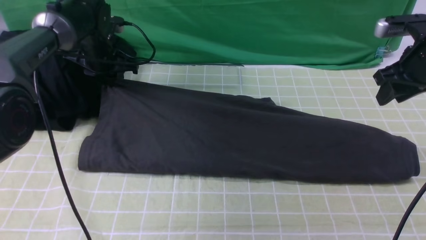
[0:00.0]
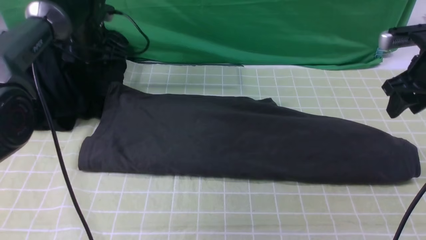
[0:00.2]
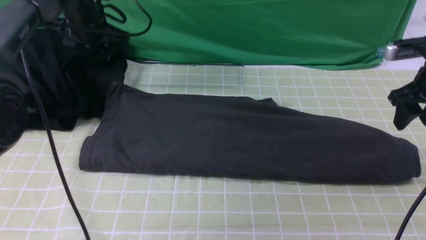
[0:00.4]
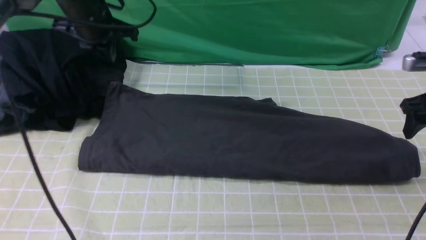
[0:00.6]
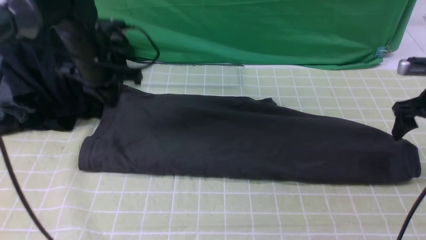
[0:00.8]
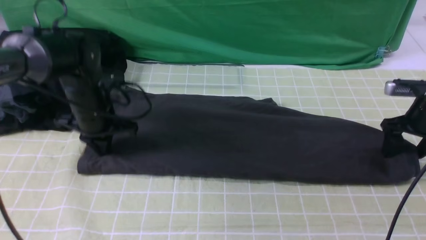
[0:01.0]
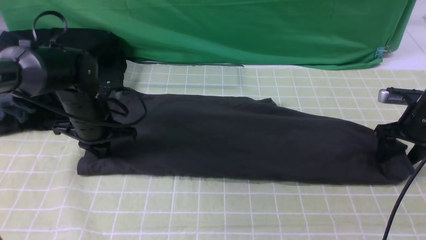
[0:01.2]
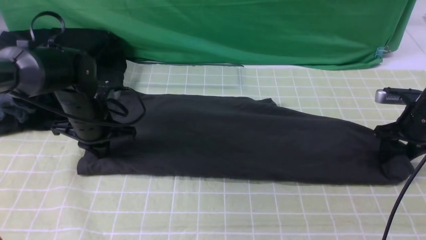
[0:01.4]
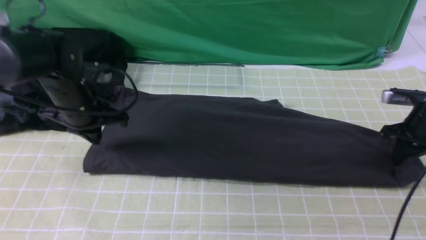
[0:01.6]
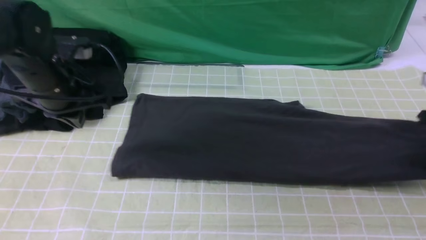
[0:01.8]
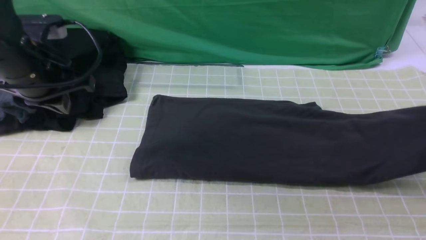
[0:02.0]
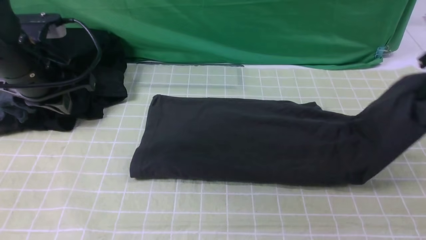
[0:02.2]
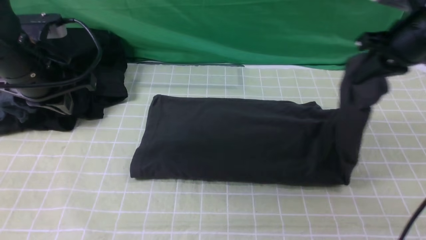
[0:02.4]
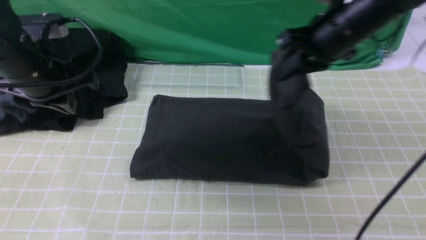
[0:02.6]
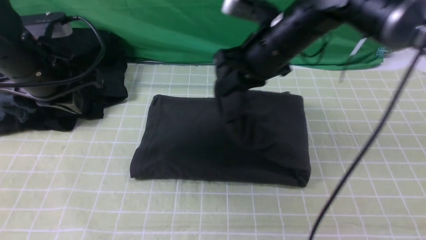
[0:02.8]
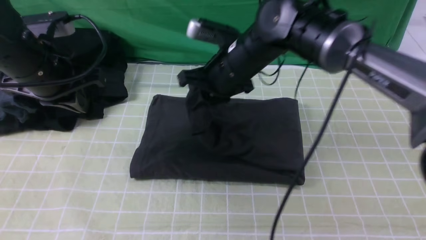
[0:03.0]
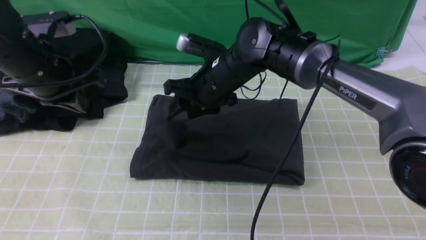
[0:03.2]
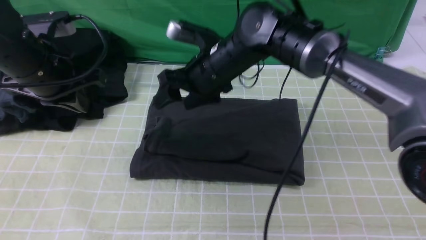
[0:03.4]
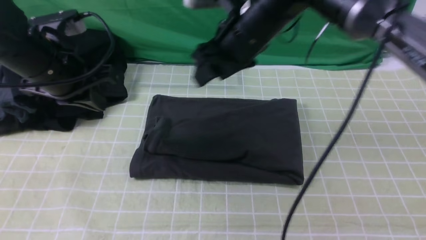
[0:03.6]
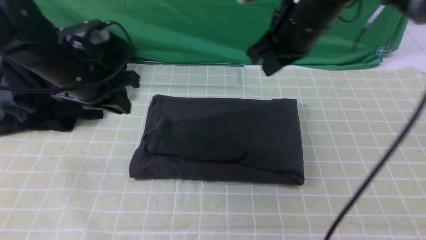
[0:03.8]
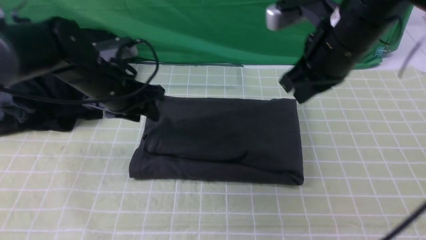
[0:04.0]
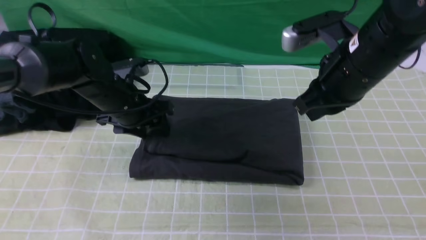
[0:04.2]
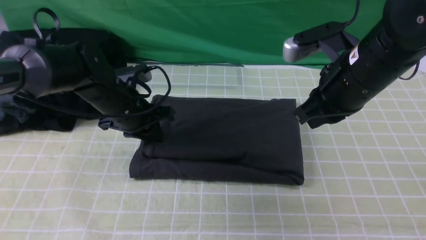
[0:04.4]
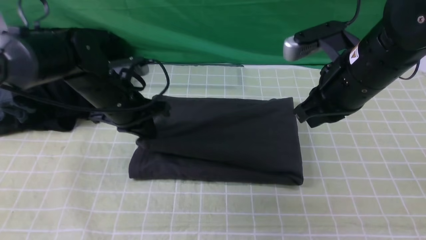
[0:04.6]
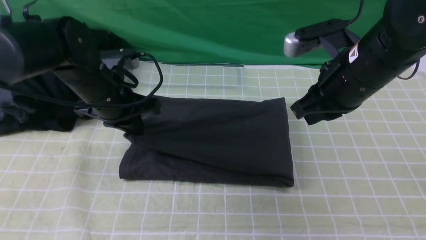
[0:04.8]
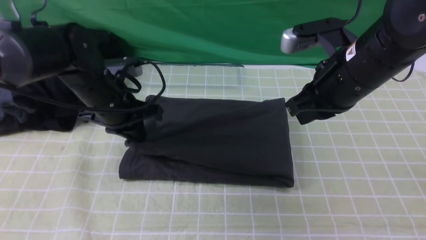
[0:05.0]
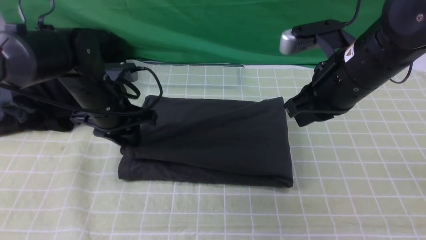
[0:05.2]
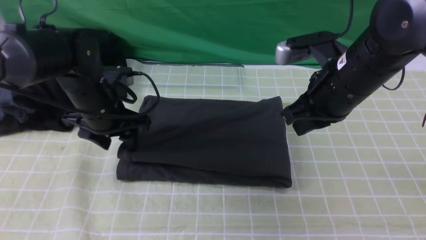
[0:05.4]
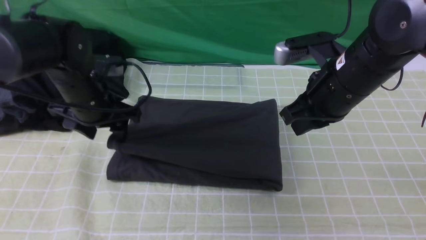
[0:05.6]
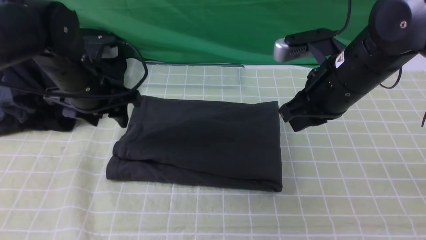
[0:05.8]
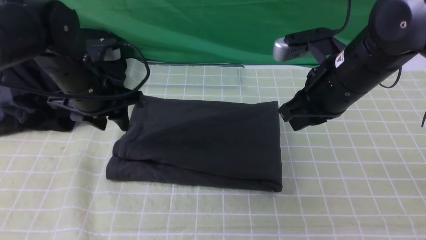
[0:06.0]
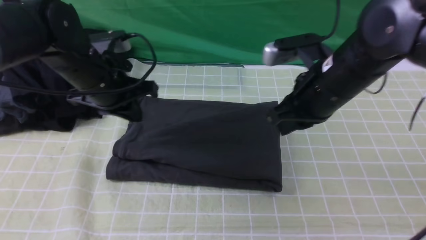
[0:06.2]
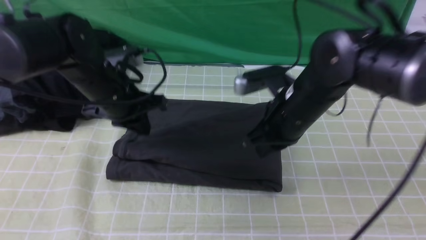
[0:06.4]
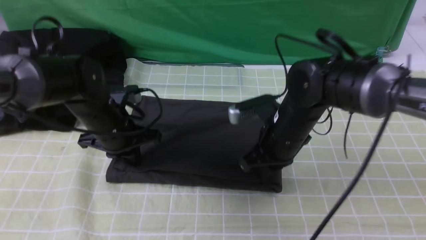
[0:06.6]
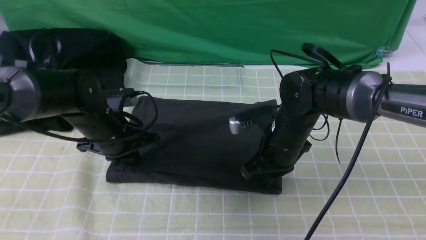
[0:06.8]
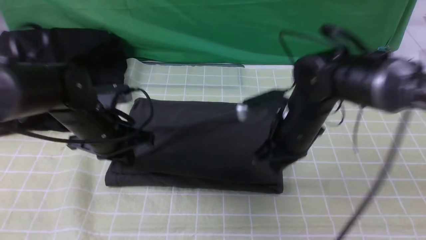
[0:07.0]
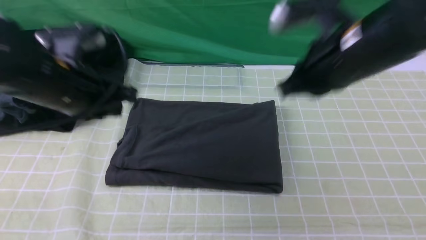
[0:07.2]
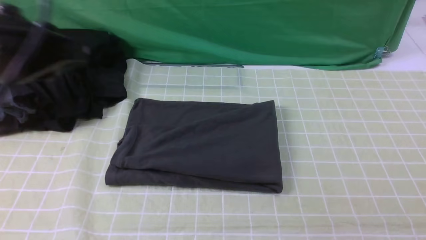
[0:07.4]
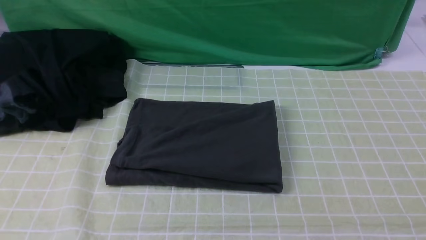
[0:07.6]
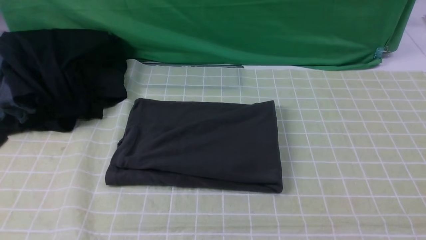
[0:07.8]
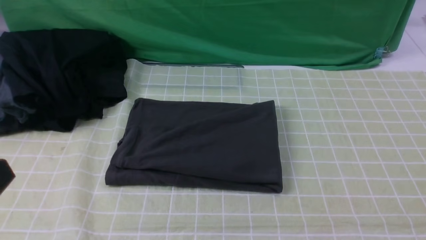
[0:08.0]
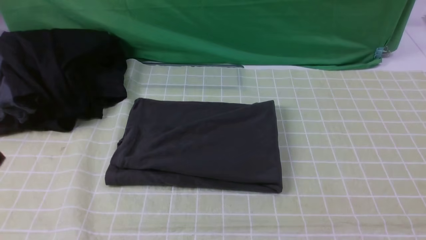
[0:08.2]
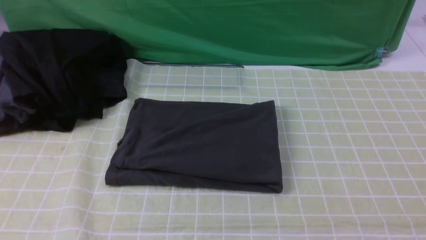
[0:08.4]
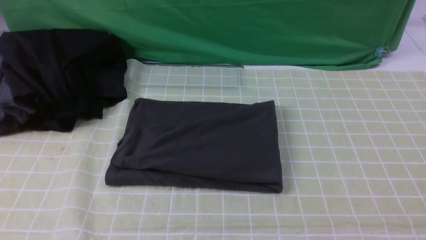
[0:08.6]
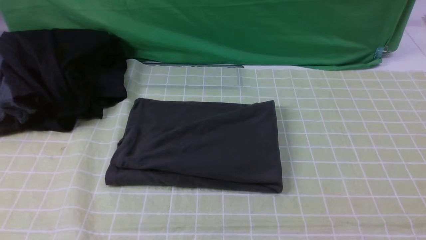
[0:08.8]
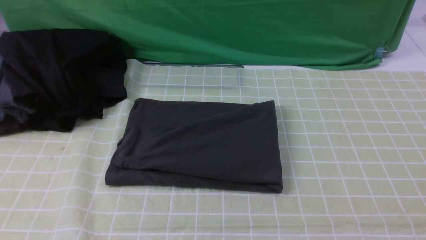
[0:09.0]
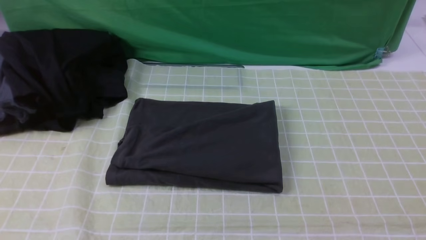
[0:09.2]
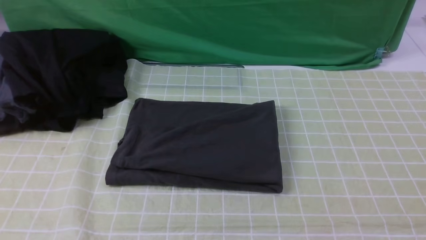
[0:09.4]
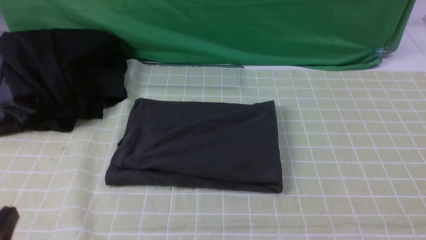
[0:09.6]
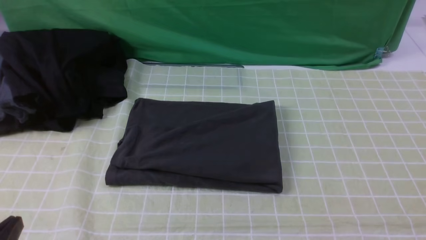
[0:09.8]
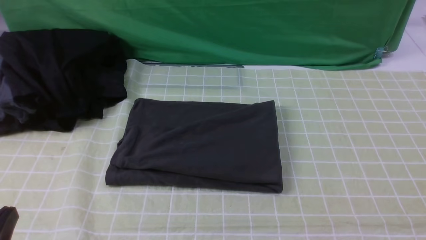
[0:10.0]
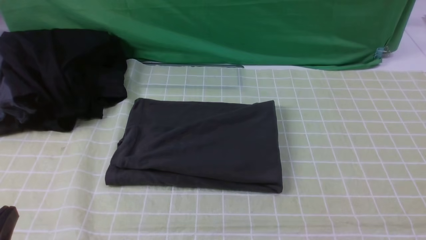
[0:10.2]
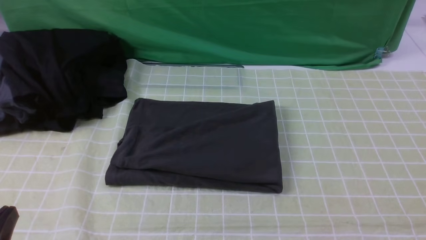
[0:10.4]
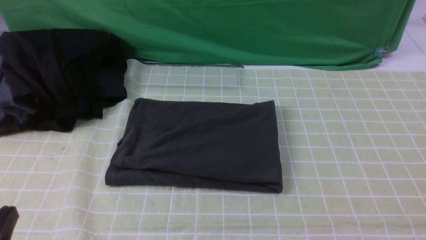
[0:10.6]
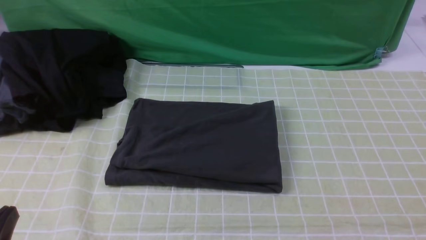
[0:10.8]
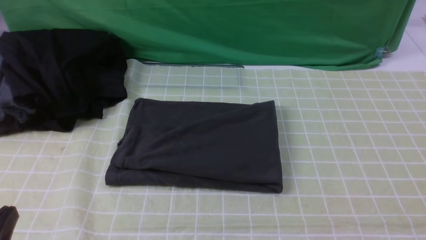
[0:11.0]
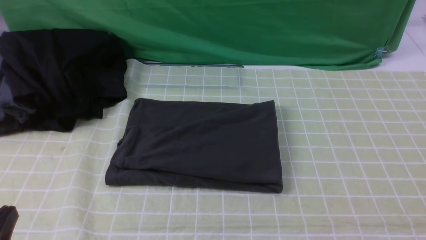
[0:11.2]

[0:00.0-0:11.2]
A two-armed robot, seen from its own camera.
Step, 0:00.4 to 0:01.4: use the right arm to clamp the right edge of the fabric.
Step, 0:01.6 to 0:03.4: use the right arm to drag the right edge of the fabric to the left and folds it over the left edge.
0:00.0 to 0:01.6: The left gripper moves backward, roughly 15 cm, and closes up. The right gripper travels downward and to the right by some 15 cm, and closes its fingers.
0:01.6 to 0:03.2: The right gripper heads to the left, covering some 40 cm, and opens its fingers. Meanwhile the left gripper moves upward, some 10 cm.
0:03.2 to 0:04.8: The right gripper heads to the right, backward and upward, covering about 20 cm, and closes up; the left gripper travels downward and to the right by some 10 cm, and opens and closes again.
0:04.8 to 0:06.4: The left gripper opens, then closes once more. Meanwhile the right gripper shifts some 10 cm downward and to the left.
0:06.4 to 0:08.0: The left gripper moves backward, some 30 cm, while the right gripper is displaced backward, to the right and upward by about 40 cm.
0:08.0 to 0:09.6: The left gripper is displaced downward by roughly 10 cm.

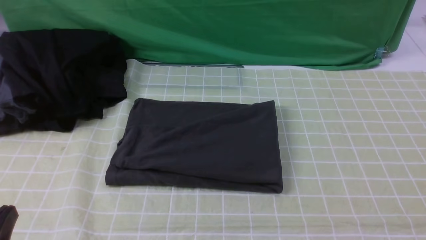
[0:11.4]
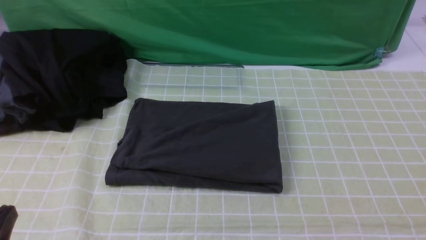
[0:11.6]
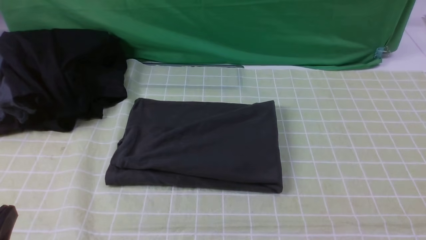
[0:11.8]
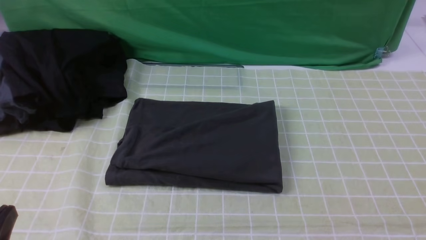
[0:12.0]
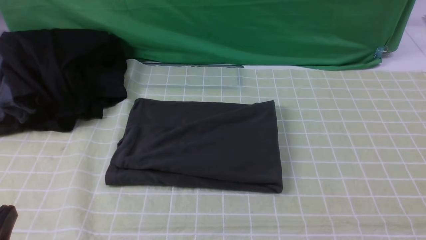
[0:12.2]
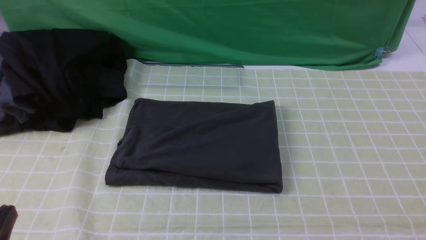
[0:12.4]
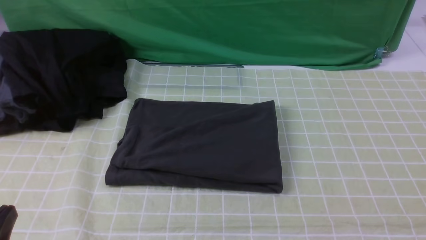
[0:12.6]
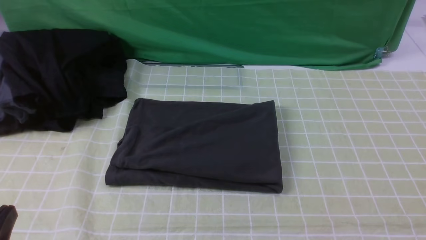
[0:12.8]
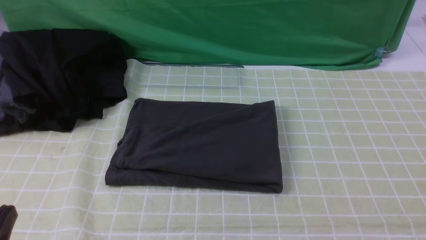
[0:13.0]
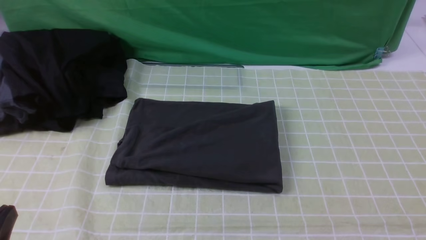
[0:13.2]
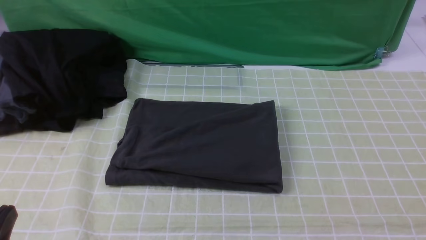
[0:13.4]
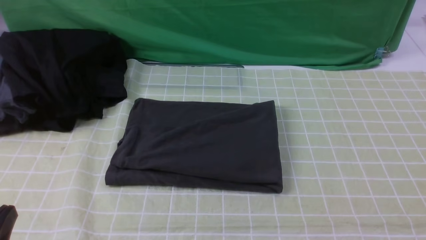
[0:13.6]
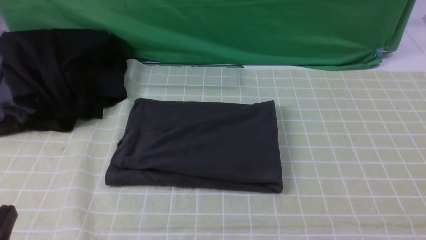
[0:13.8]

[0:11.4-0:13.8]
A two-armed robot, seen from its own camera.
0:11.4 to 0:13.8: Both grippers stay put.
